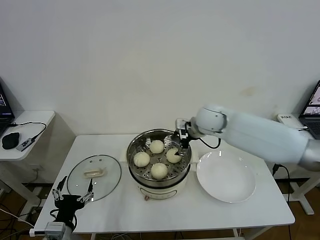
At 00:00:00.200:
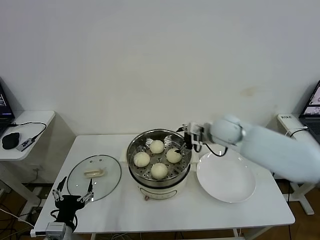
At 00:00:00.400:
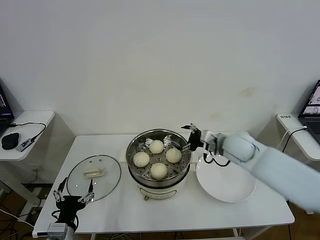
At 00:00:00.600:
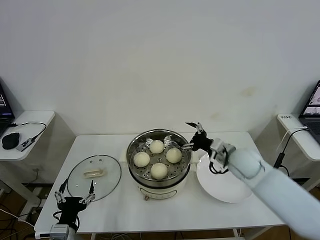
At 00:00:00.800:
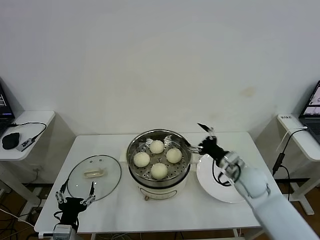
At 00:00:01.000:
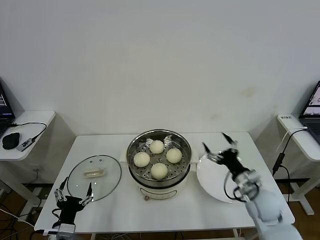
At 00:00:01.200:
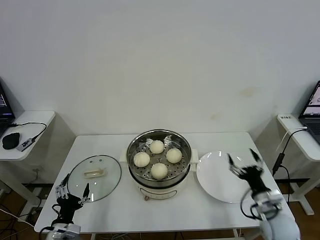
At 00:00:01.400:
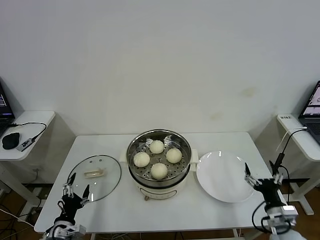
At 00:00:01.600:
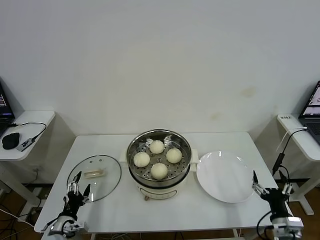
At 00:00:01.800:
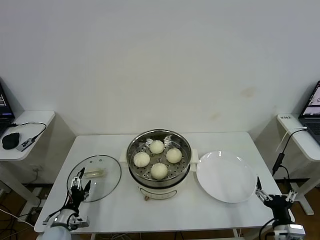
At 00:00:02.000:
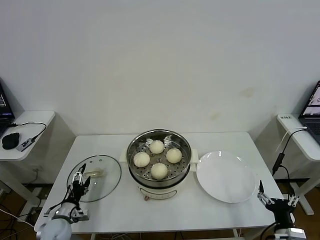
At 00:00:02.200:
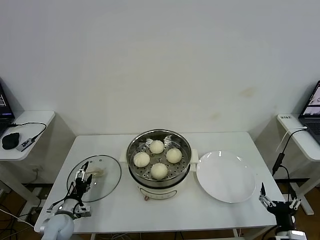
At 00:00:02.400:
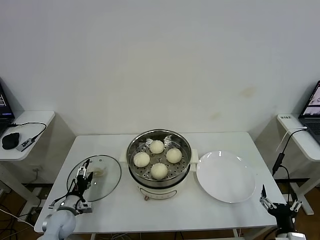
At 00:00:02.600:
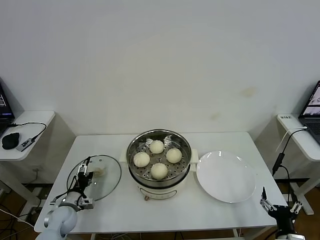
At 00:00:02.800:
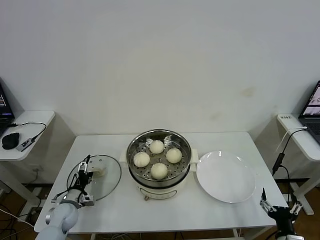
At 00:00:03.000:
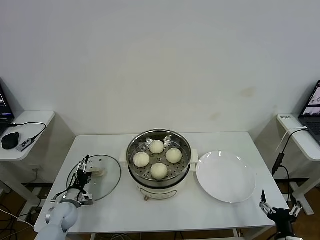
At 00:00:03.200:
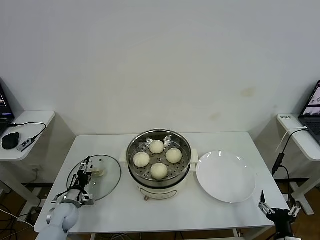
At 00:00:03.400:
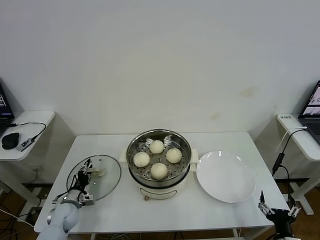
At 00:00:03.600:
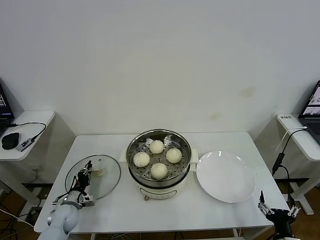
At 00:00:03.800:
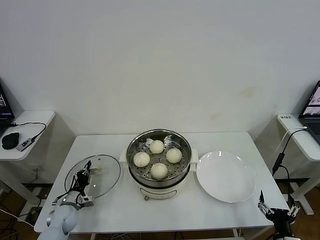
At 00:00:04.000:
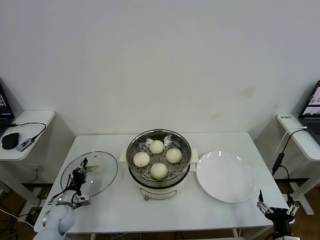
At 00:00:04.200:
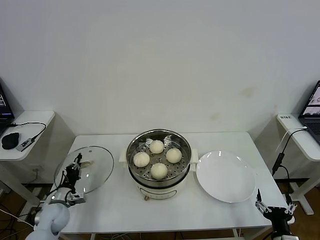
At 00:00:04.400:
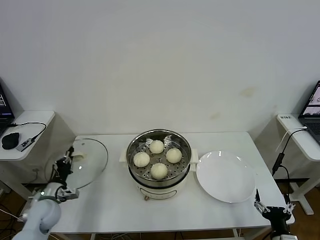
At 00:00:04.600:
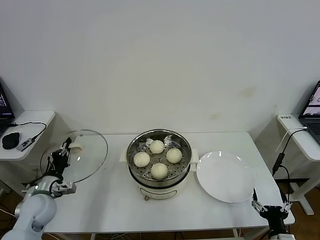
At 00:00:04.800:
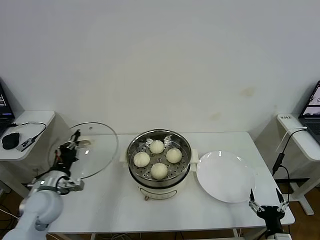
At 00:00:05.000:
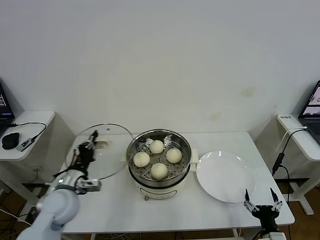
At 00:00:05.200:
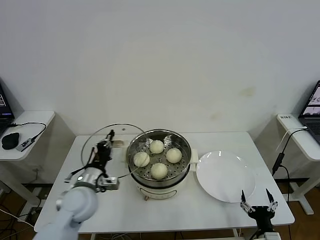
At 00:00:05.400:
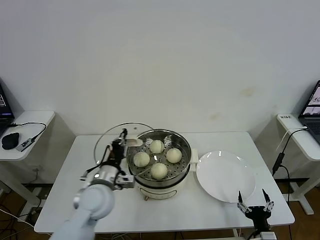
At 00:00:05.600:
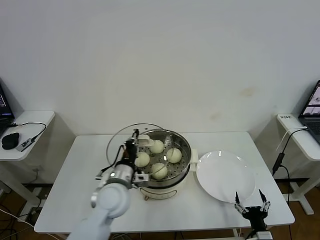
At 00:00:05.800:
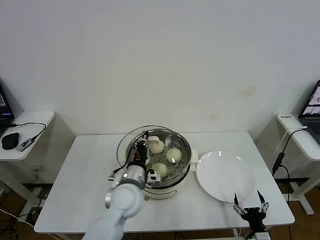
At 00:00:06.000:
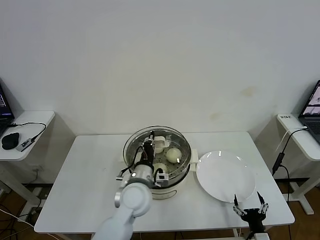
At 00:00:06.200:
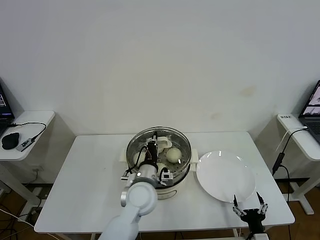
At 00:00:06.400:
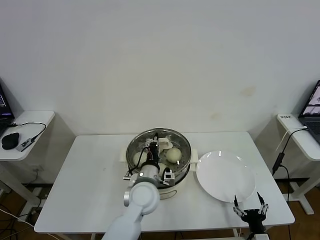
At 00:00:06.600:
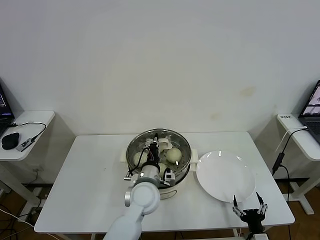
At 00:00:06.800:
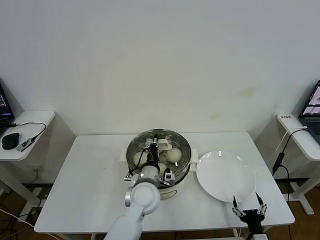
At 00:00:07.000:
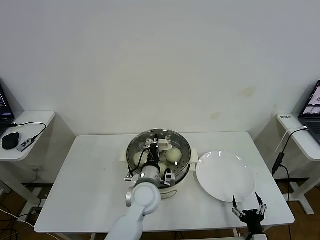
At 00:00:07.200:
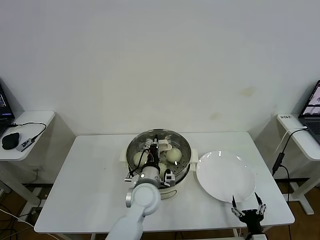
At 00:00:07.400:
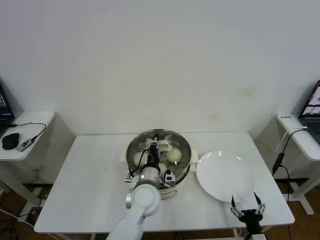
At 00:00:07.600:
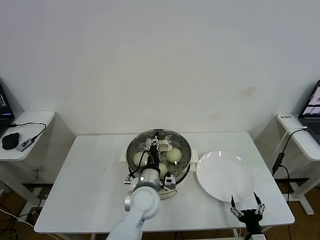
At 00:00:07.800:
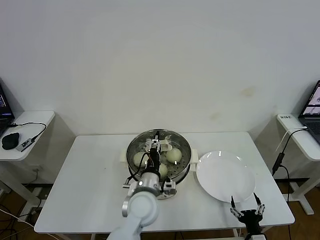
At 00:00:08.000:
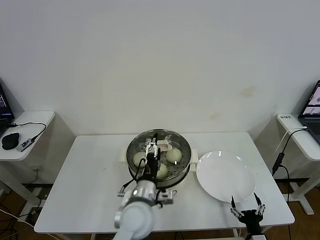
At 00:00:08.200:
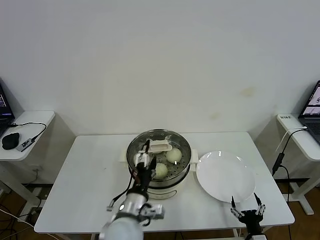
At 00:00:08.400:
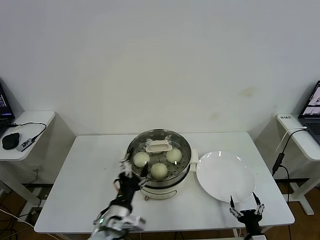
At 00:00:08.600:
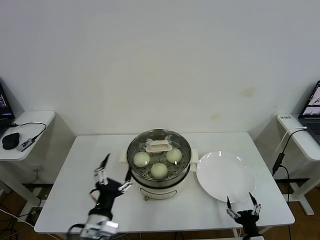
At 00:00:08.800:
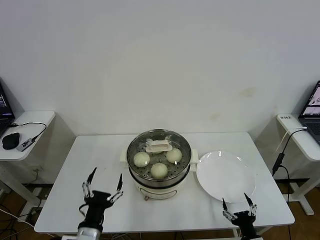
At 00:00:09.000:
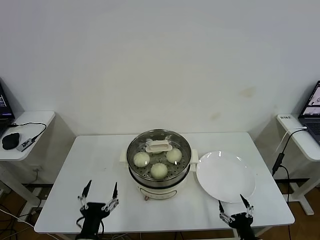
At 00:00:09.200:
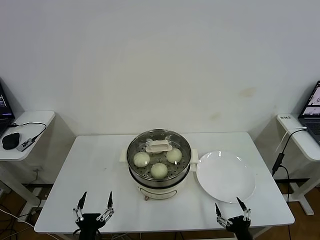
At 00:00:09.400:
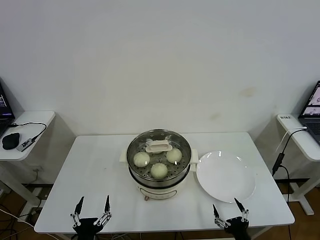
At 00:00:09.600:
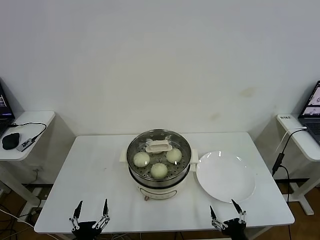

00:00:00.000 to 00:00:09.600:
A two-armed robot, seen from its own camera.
Task of the whole recording: take steamed baozi put them in steamer then cover it.
Step, 00:00:00.000 to 00:00:03.800: Grasp the pot lid with left gripper.
Step, 00:00:04.000 to 00:00:07.800: Place the pot lid on the steamer with left gripper.
00:00:00.000 to 00:00:01.600: The left gripper goes roughly 15 cm downward, to the left and forward; the right gripper moves backward, downward and to the right, approximately 50 cm.
00:00:01.600 to 00:00:03.200: The left gripper heads forward, covering about 15 cm, while the right gripper heads backward, covering approximately 5 cm.
00:00:03.200 to 00:00:04.800: The left gripper travels upward by roughly 20 cm, and closes up.
00:00:04.800 to 00:00:06.400: The left gripper is displaced to the right by some 30 cm, while the right gripper moves approximately 5 cm.
00:00:06.400 to 00:00:08.000: The left gripper moves backward, approximately 5 cm, and opens up.
00:00:08.000 to 00:00:09.600: The right gripper changes place by roughly 5 cm, while the left gripper shifts about 30 cm backward, to the left and downward.
